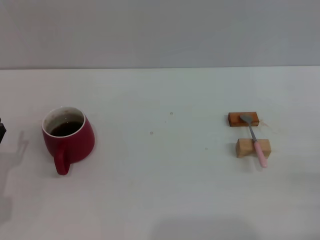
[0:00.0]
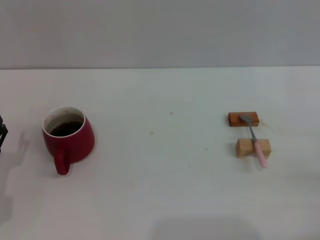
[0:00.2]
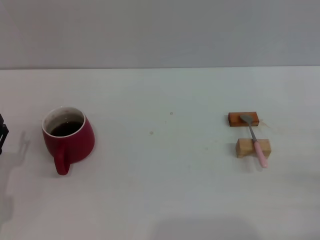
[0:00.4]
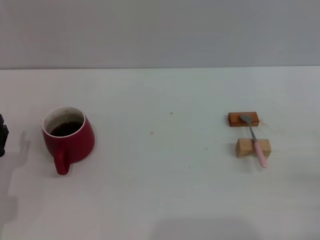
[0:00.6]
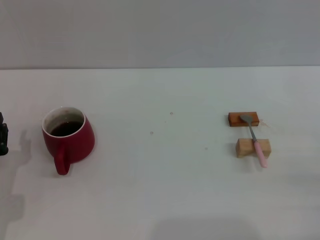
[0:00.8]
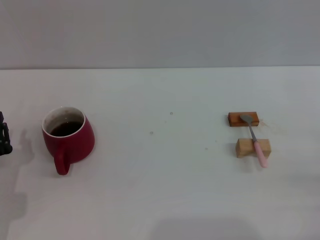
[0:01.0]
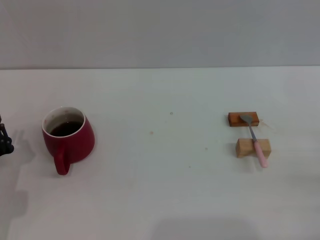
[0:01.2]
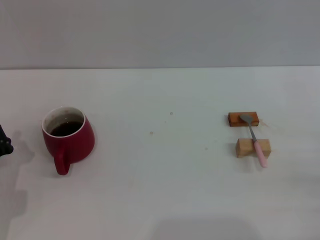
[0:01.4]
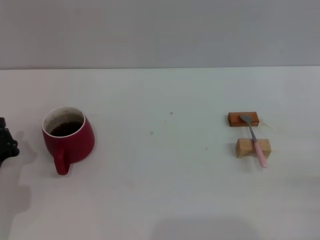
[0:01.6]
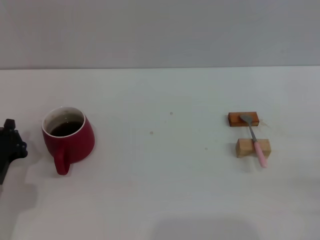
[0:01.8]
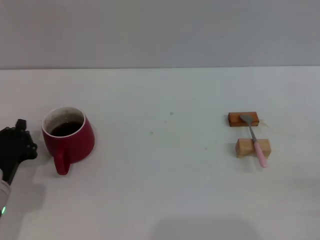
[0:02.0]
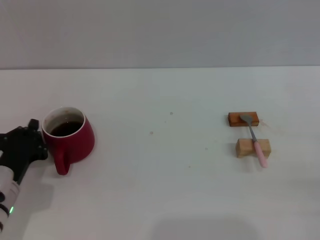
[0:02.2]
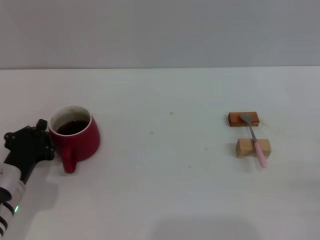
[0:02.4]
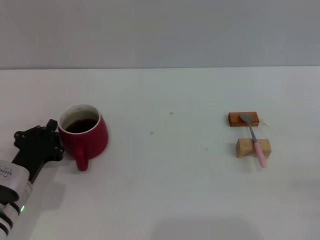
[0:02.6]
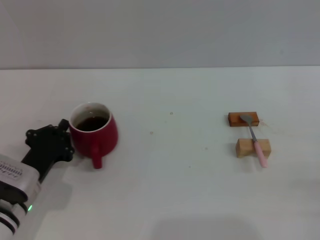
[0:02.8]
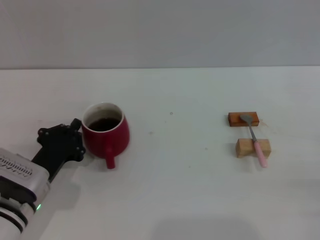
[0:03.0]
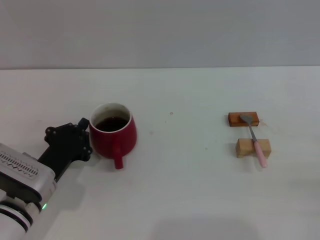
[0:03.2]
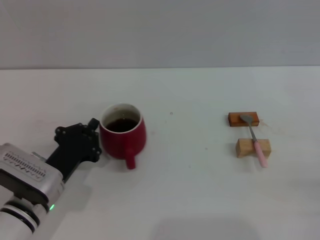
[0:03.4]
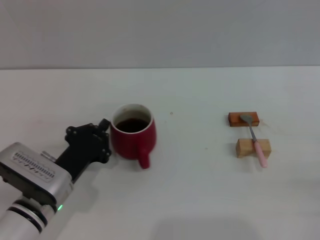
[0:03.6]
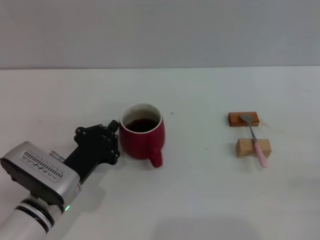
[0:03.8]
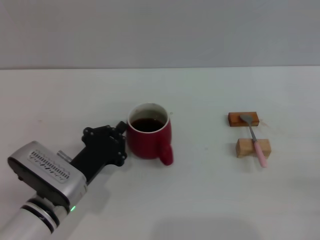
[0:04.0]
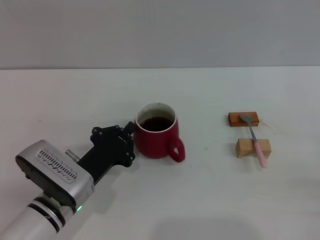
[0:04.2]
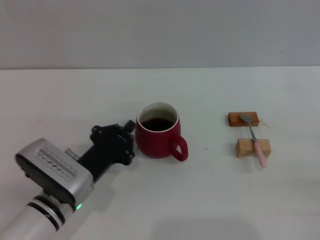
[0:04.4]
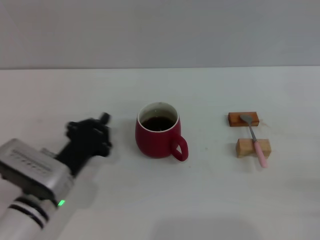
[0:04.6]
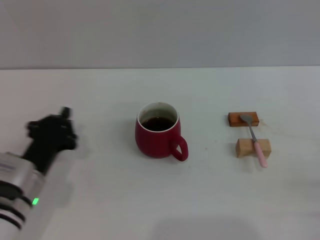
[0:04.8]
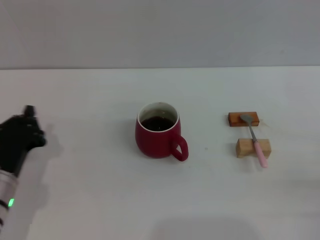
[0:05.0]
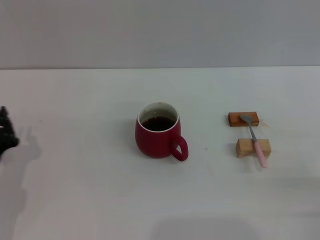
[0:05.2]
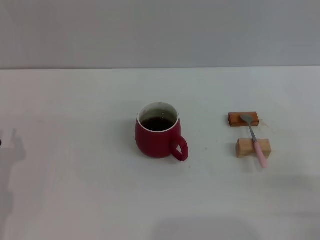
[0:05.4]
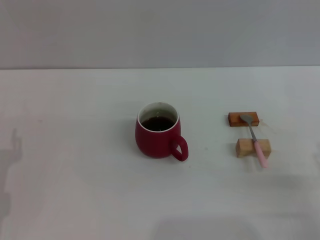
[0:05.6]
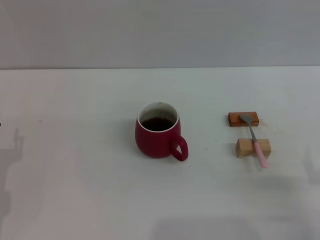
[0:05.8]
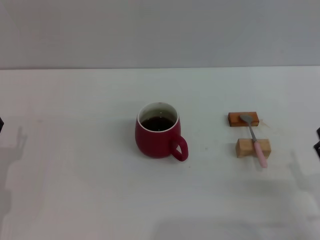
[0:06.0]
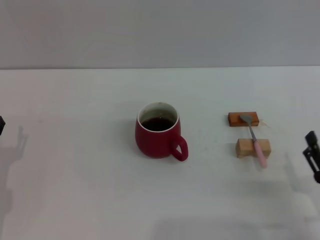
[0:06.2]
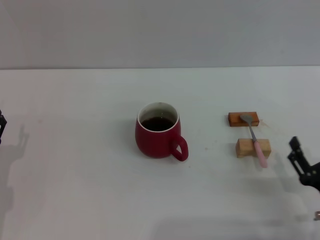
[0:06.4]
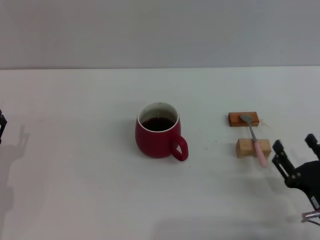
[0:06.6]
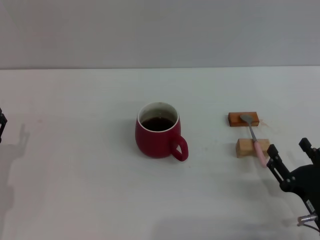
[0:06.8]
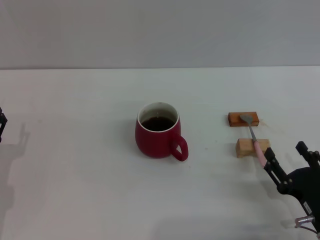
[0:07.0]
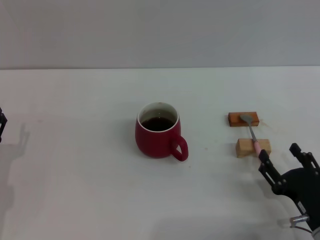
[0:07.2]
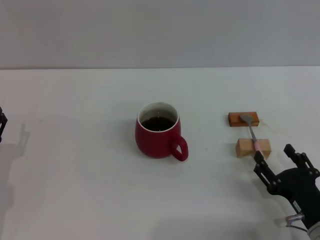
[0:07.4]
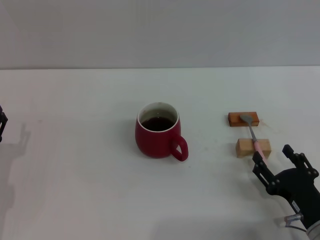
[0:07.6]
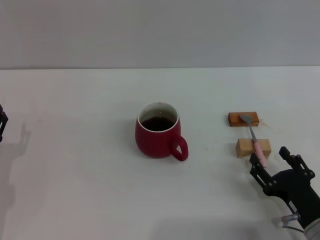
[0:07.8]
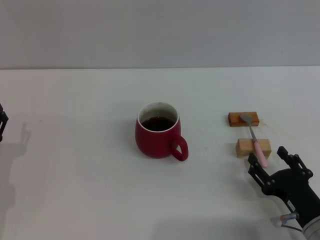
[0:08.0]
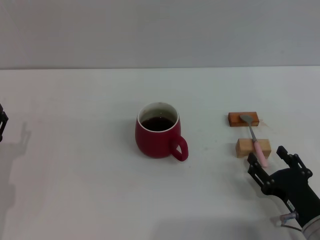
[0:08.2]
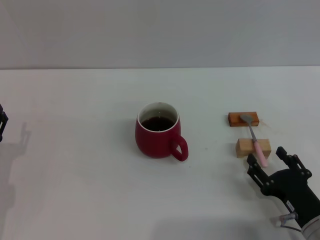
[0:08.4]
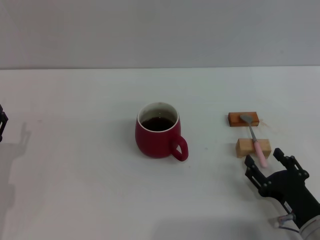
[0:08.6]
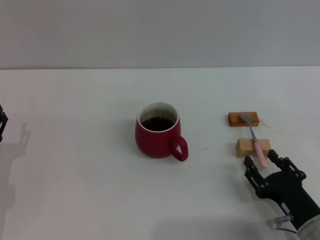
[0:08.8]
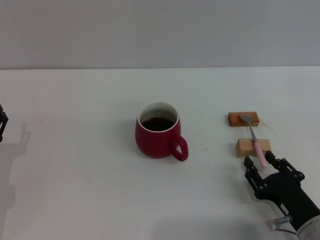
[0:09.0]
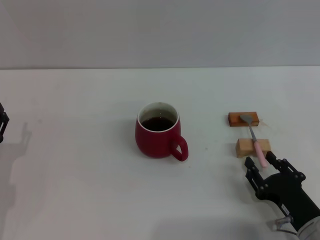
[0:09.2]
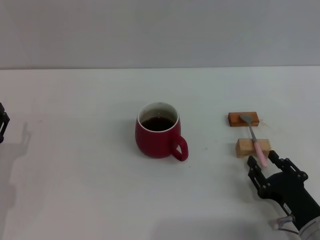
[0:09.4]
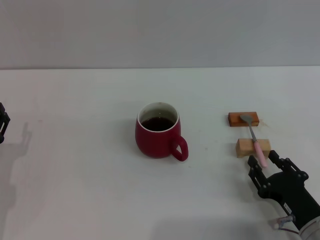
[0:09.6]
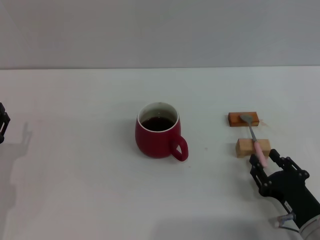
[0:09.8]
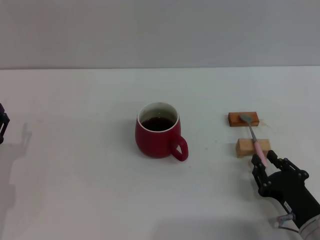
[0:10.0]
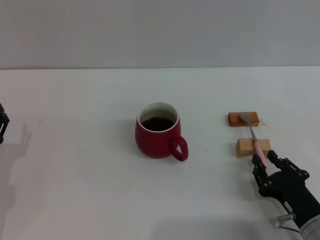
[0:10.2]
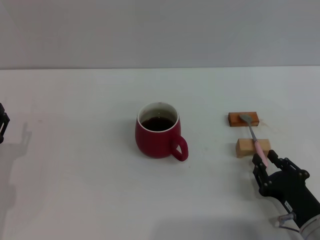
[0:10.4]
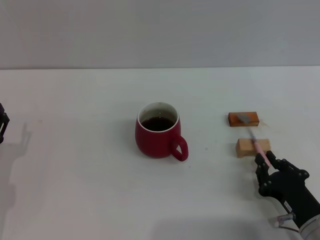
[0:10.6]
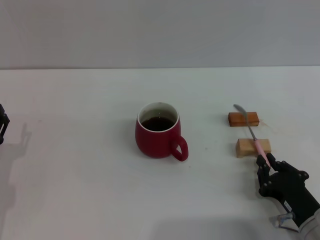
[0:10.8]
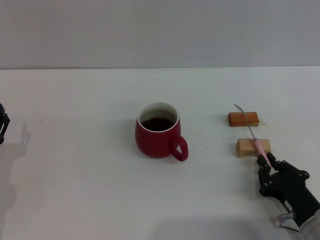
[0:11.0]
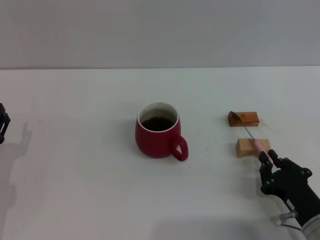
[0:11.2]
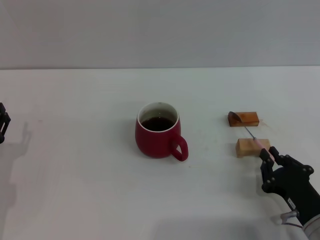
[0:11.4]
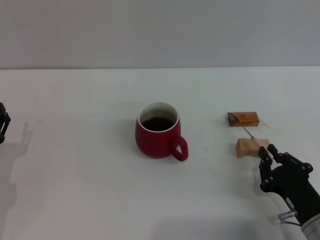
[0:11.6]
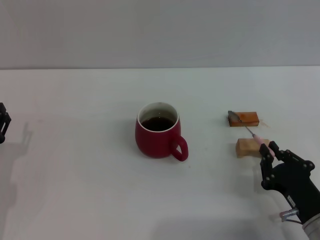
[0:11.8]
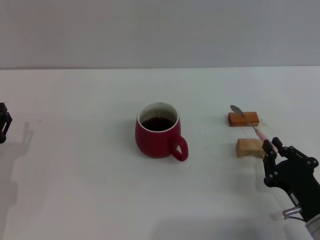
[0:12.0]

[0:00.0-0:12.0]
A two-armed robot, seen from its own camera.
Task of the whole recording: Move the red cup to the center, lift the pink spoon, stir it three times in the cup, and put the spoon into the cup.
Step, 0:00.0 to 0:04.6: Move the cup with coffee to the center of view with the left gripper.
0:00.0 to 0:01.6: The left gripper closes its fingers.
0:01.6 to 0:03.0: The left gripper shifts roughly 5 cm to the right.
0:03.0 to 0:04.4: The left gripper heads to the right, covering some 5 cm.
0:04.4 to 0:06.0: The right gripper heads to the left, covering roughly 5 cm. The left gripper travels to the left by about 15 cm, and opens.
0:06.0 to 0:07.6: The right gripper ends up roughly 5 cm from where it was.
0:07.6 to 0:09.0: Both grippers stay about where they are.
0:09.0 to 0:10.4: The right gripper closes.
0:10.4 to 0:12.0: The right gripper closes its fingers.

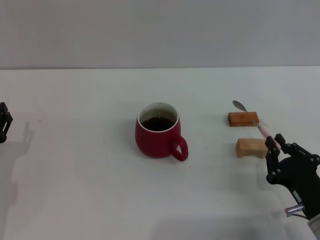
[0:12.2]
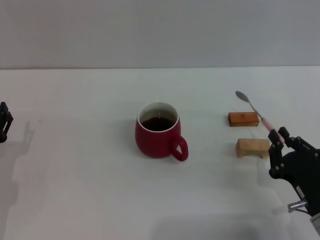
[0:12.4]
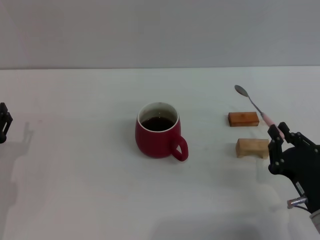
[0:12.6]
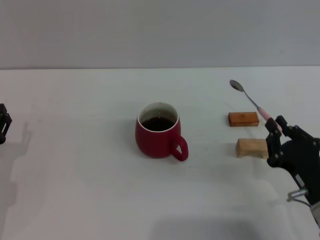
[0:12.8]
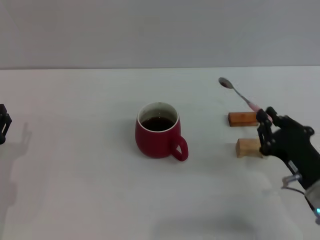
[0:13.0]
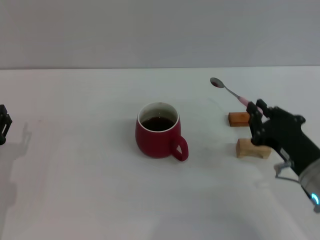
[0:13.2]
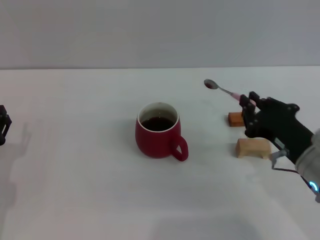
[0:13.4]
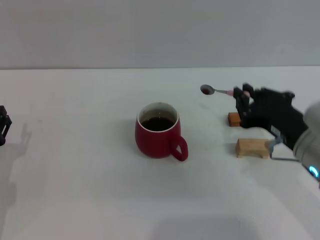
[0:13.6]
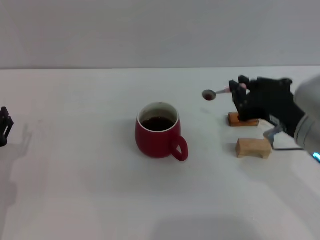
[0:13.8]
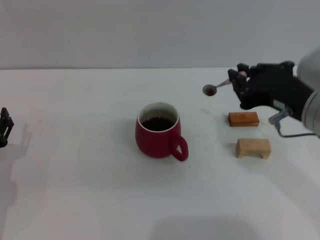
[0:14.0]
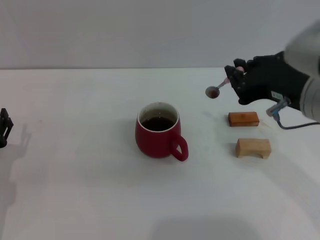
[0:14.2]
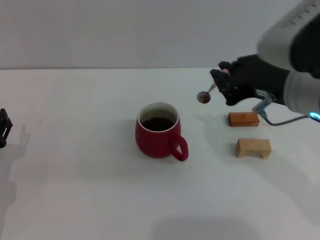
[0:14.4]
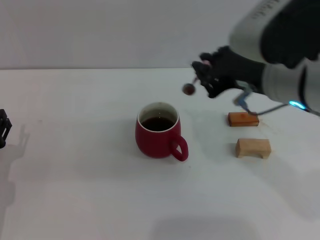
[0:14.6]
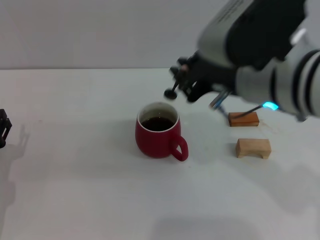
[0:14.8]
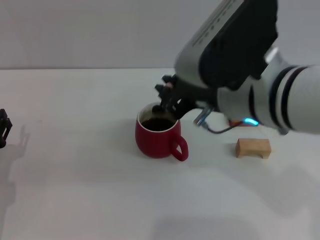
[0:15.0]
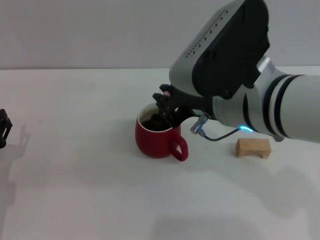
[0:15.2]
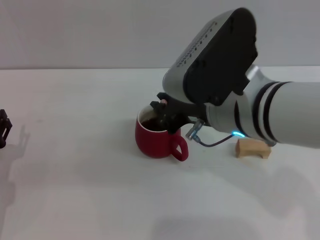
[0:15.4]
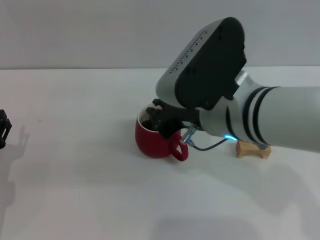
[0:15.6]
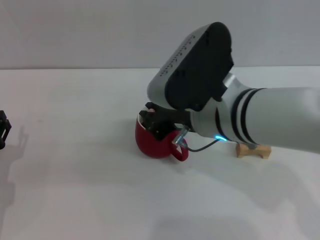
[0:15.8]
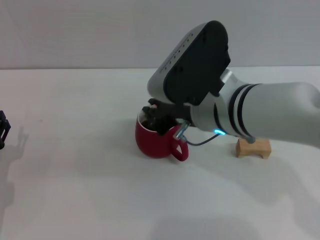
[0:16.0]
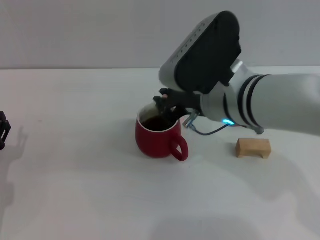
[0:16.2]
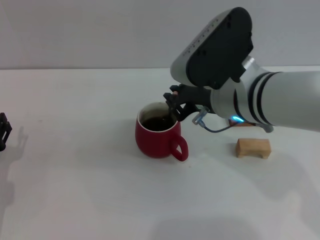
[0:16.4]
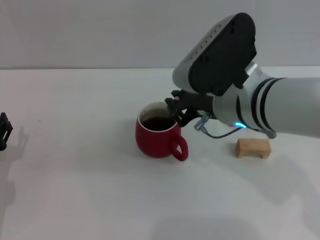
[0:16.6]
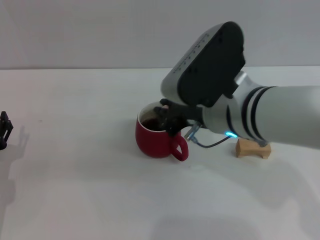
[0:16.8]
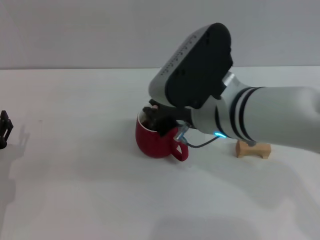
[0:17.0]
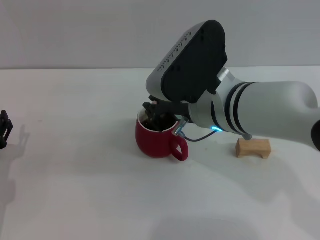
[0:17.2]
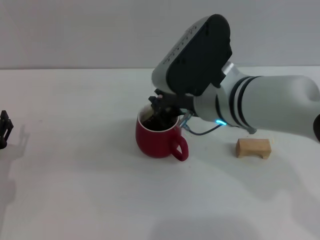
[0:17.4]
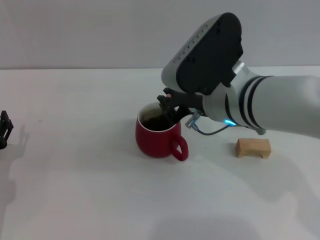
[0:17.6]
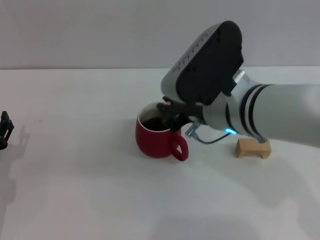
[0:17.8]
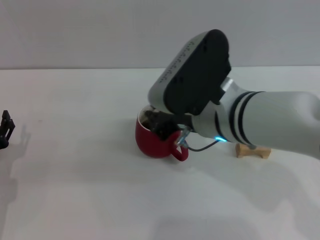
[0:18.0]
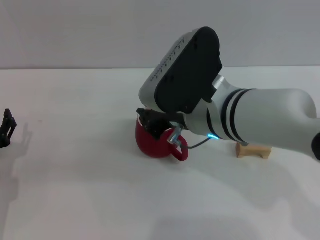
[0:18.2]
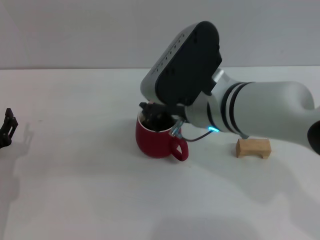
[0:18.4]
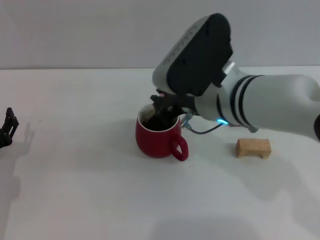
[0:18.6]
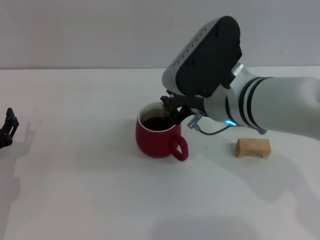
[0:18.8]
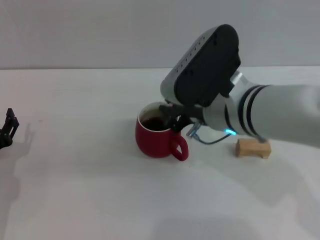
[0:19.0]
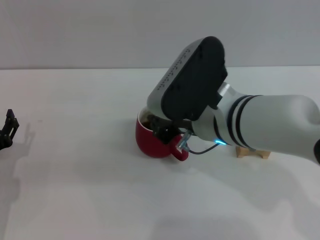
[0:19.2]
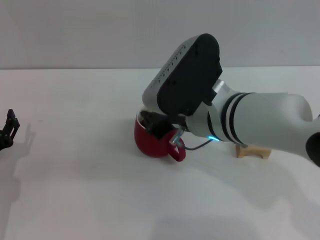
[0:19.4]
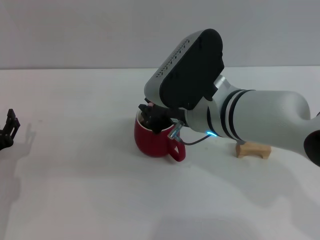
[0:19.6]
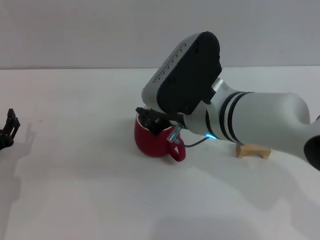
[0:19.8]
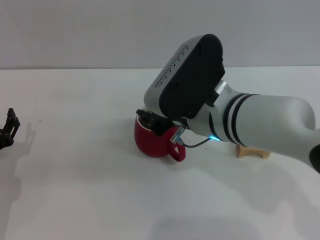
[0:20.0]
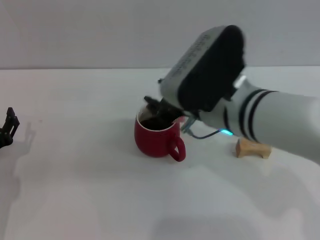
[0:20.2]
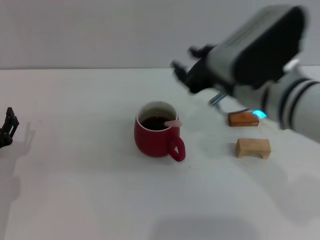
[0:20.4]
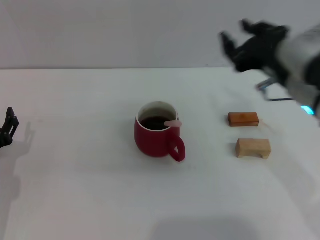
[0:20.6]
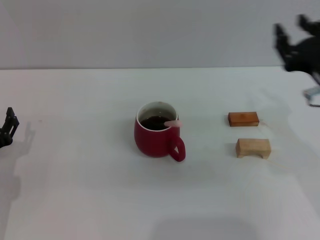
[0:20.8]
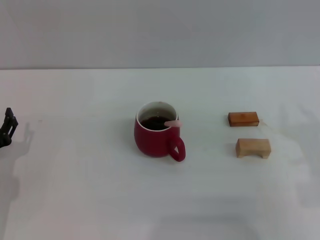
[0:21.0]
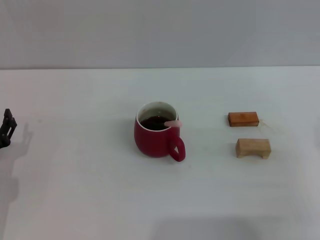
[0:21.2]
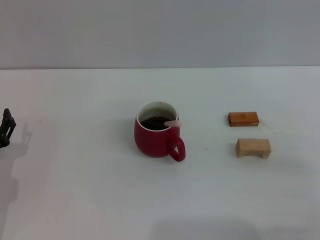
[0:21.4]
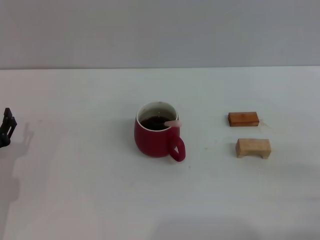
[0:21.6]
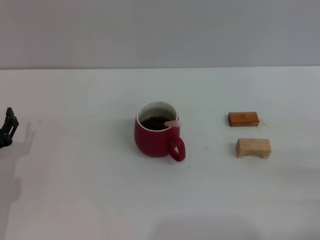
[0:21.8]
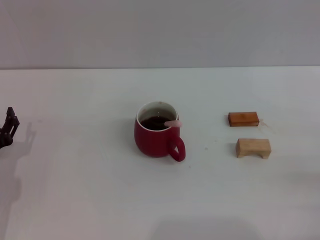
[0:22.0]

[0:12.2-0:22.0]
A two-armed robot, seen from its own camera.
Task of the whole recording: Move the red cup to the center, lift the pink spoon, stir it three times in the cup, and put the spoon into the cup.
Step, 0:12.6 to 0:20.2: Stir the coffee in the cup with the right gripper.
0:12.2 to 0:13.6: The right gripper shifts roughly 15 cm upward and forward.
0:13.6 to 0:15.0: The right gripper is displaced upward and to the left by roughly 15 cm.
0:15.0 to 0:16.4: The right gripper changes place by approximately 5 cm.
0:16.4 to 0:19.2: The grippers stay close to where they were, moving slightly.
0:19.2 to 0:20.6: The right gripper travels to the right by roughly 10 cm.
0:20.6 to 0:22.0: The right gripper heads to the right, downward and backward, covering roughly 25 cm.
